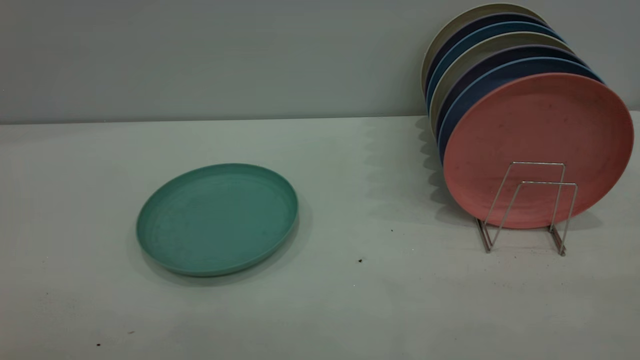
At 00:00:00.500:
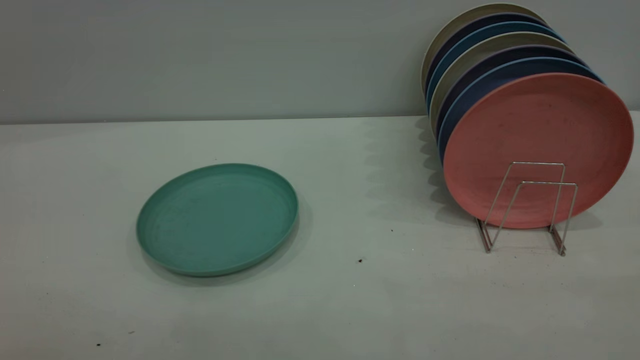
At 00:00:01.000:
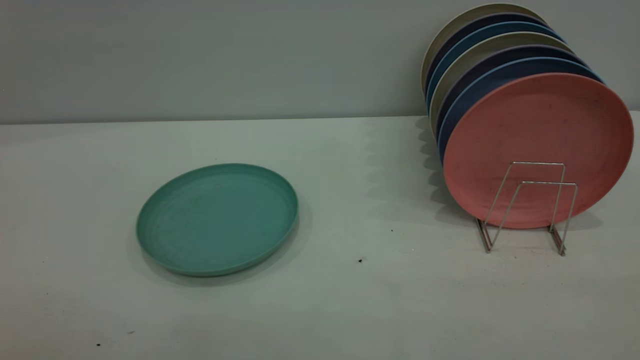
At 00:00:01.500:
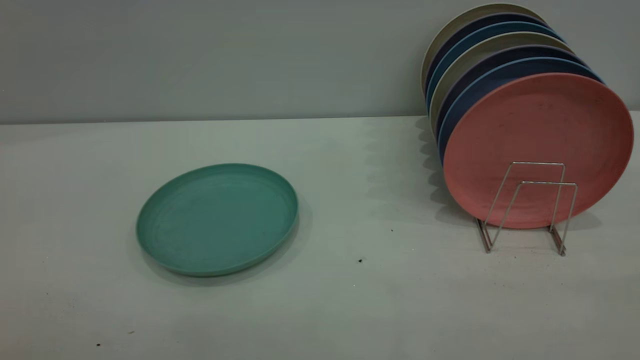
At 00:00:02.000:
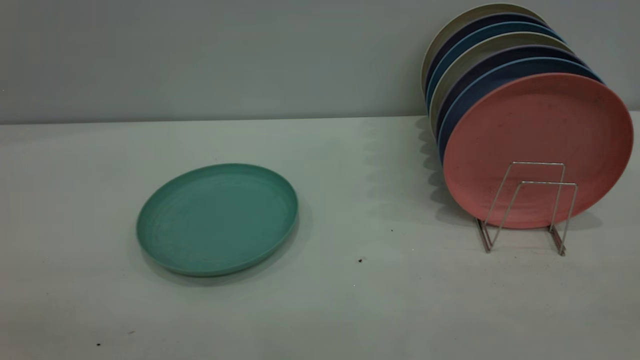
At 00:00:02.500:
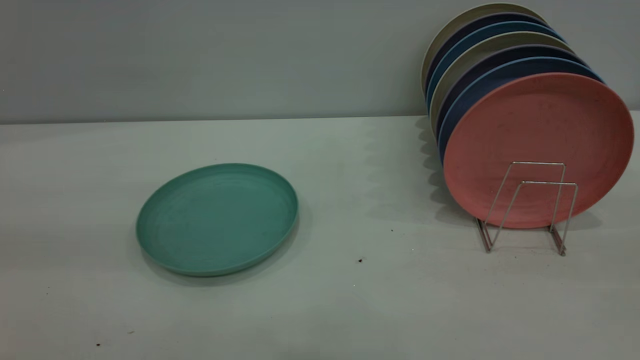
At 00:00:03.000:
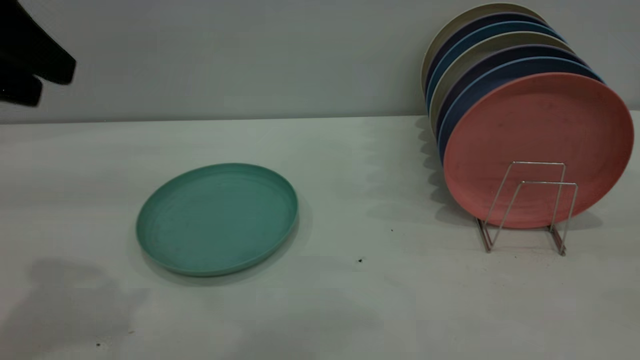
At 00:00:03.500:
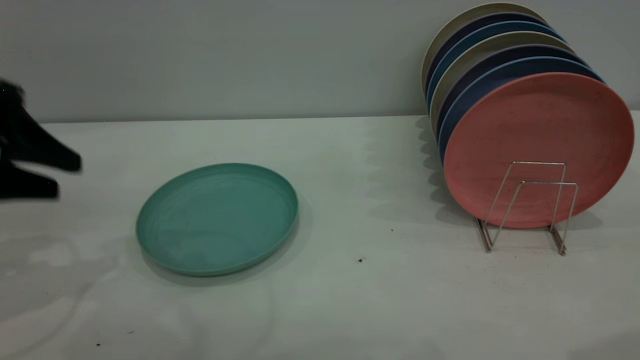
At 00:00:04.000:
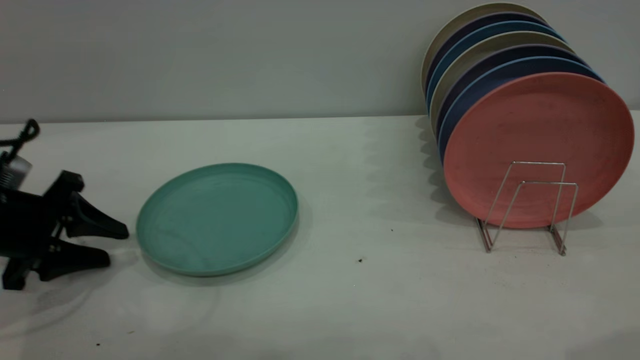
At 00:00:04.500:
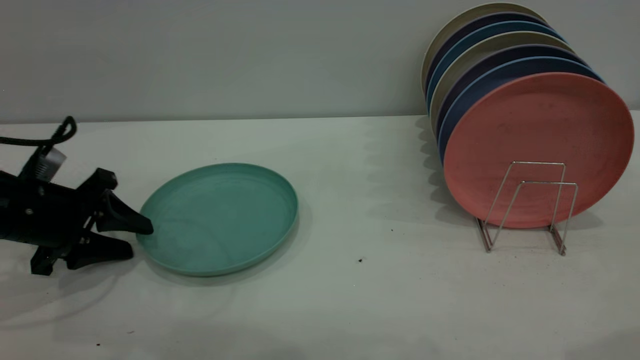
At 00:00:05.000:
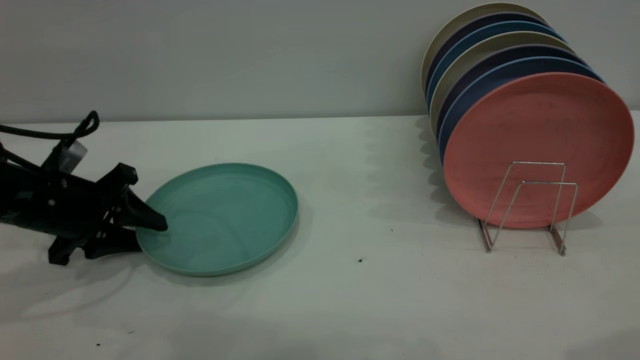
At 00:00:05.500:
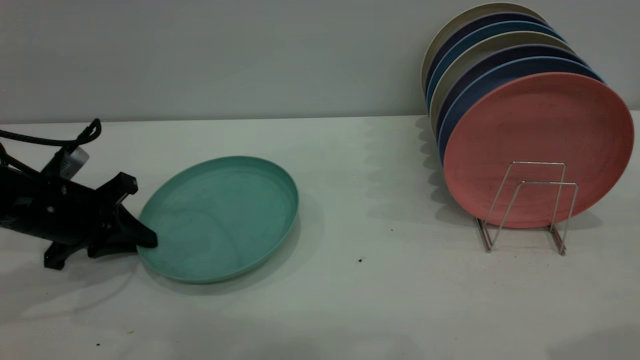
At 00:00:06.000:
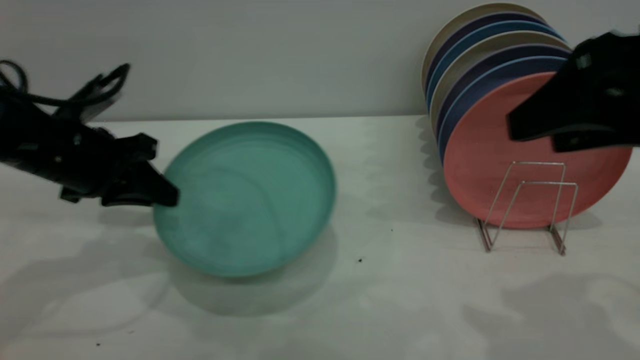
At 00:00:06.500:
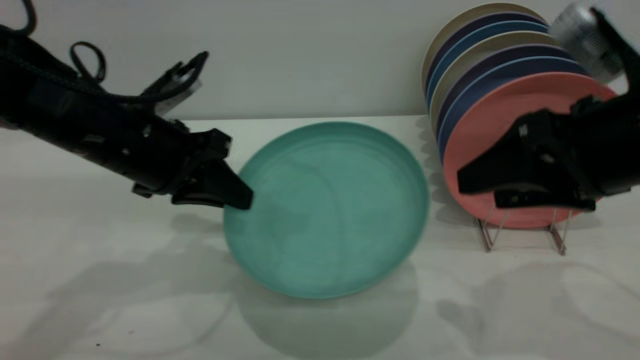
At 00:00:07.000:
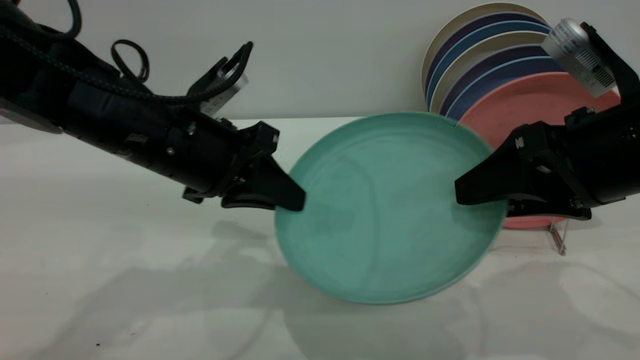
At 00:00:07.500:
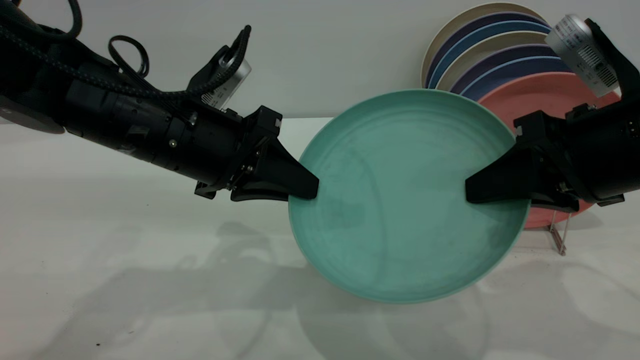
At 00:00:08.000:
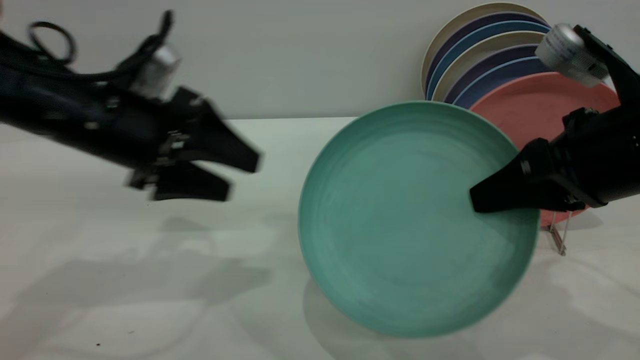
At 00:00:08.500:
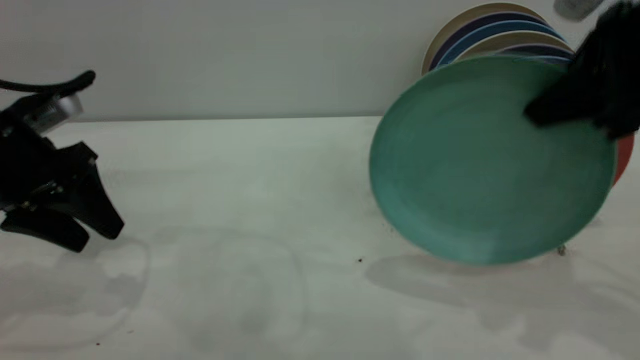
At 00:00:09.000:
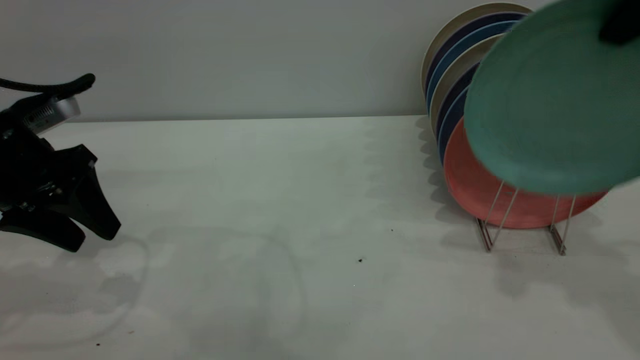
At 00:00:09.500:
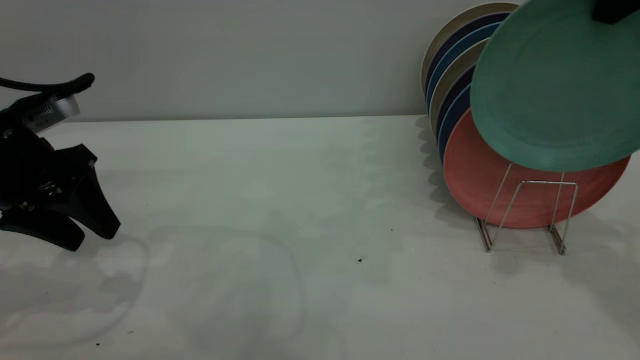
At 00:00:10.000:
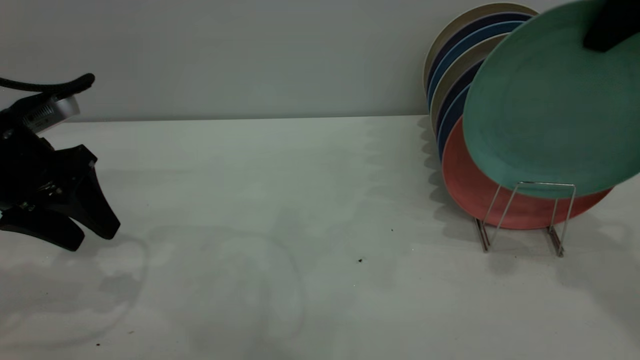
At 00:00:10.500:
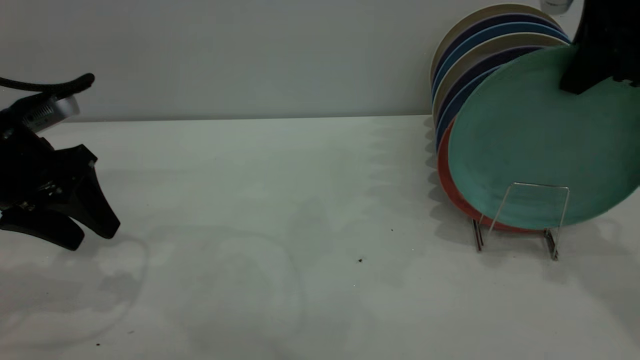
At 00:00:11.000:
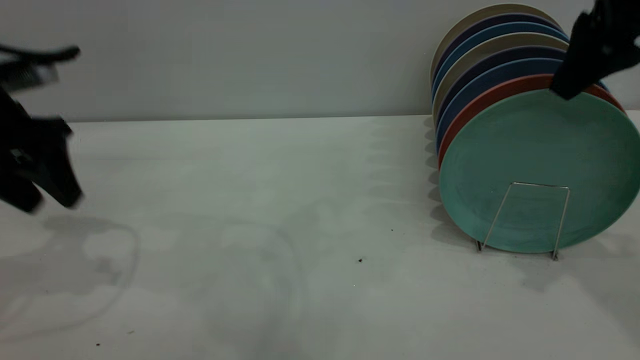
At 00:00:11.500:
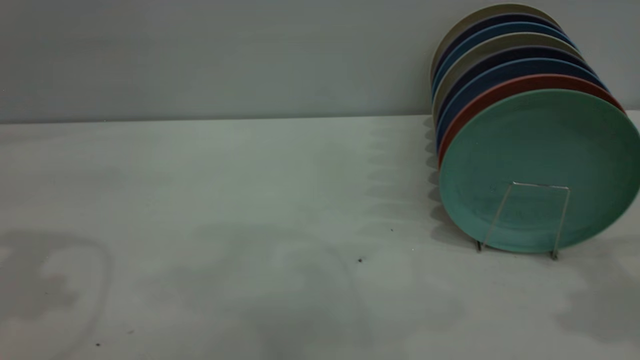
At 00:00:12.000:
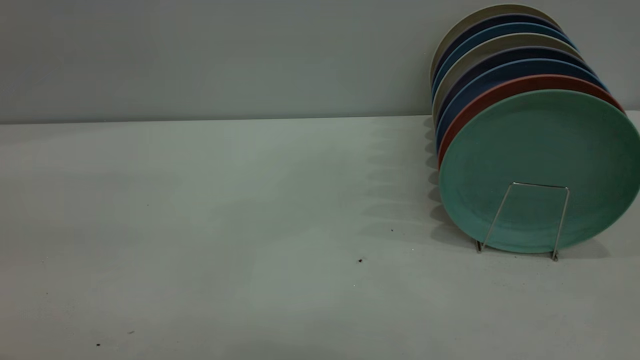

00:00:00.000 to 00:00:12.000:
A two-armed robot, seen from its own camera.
Task of the whole recording: the left gripper grasp the green plate, the left gripper pass the green plate to the right gripper, and the right gripper place the green plate on the plate rack.
Step, 00:00:00.000 to 00:00:06.000: Pick up the plate with the left gripper.
Step, 00:00:06.500 to 00:00:07.500: Pass the plate from the left gripper to the right gripper.
Step, 00:00:08.500 to 00:00:11.000: Place the plate on the shelf.
00:00:02.000 to 00:00:04.000: The left gripper shifts approximately 40 cm forward and downward.
00:00:04.000 to 00:00:06.000: The left gripper shifts approximately 10 cm to the right and upward, and closes. Meanwhile the right gripper is displaced downward and forward by about 10 cm.
00:00:06.000 to 00:00:08.000: The right gripper heads downward, covering some 5 cm, and closes. Meanwhile the left gripper is displaced to the right by about 5 cm, and opens its fingers.
00:00:08.000 to 00:00:10.000: The left gripper shifts roughly 10 cm to the left, while the right gripper is displaced upward and forward by some 15 cm.
00:00:10.000 to 00:00:12.000: The right gripper shifts approximately 25 cm backward, and opens its fingers, while the left gripper goes some 25 cm upward and backward.

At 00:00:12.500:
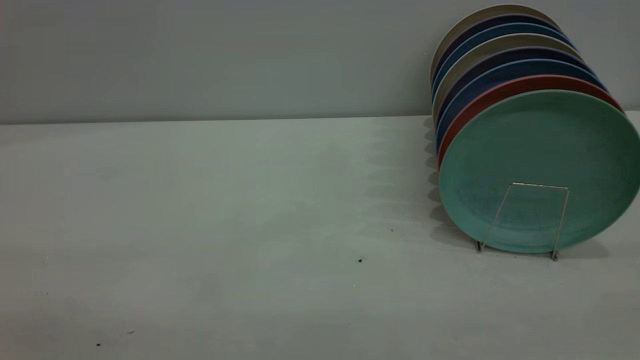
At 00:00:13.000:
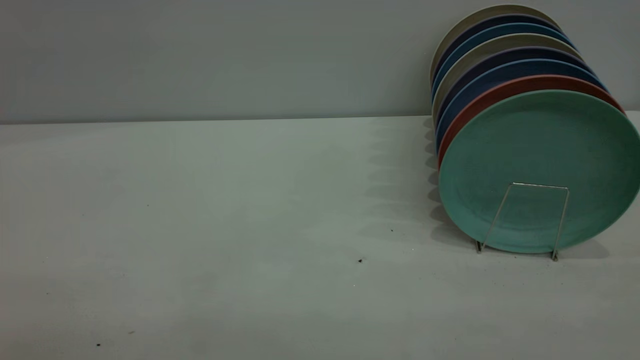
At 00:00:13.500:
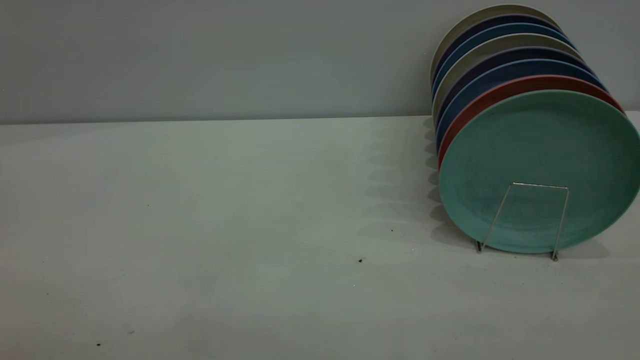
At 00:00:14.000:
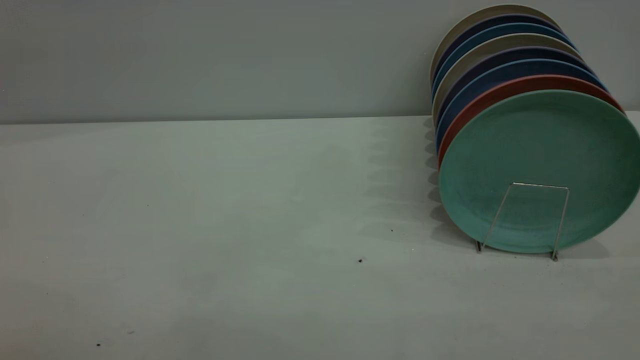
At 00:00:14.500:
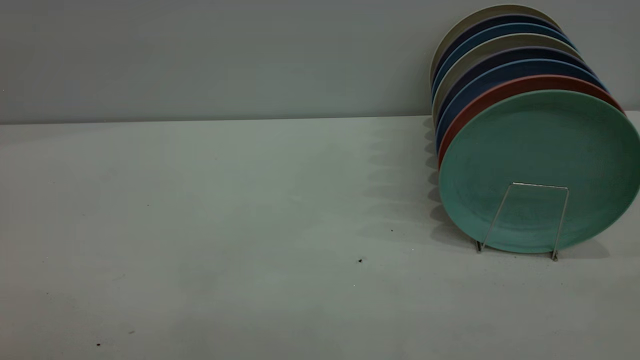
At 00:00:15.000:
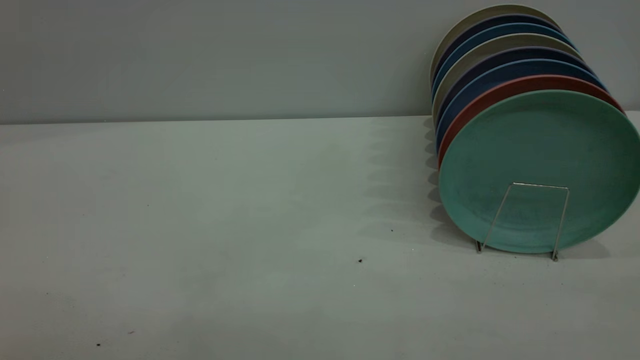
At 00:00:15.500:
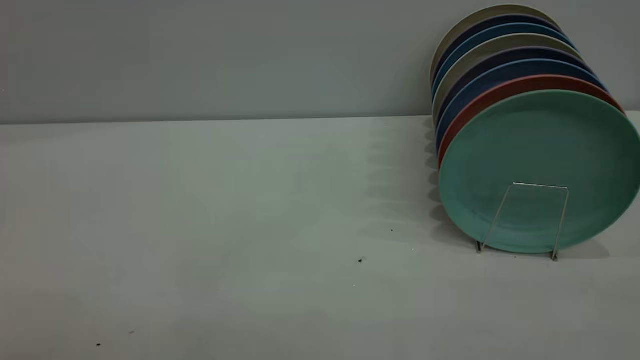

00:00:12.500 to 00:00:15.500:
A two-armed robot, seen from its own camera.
Task of the whole recording: the left gripper grasp the green plate, the left gripper pass the green plate to the right gripper, and the right gripper place the green plate on the plate rack.
00:00:14.000 to 00:00:15.500: Both grippers stay about where they are.
